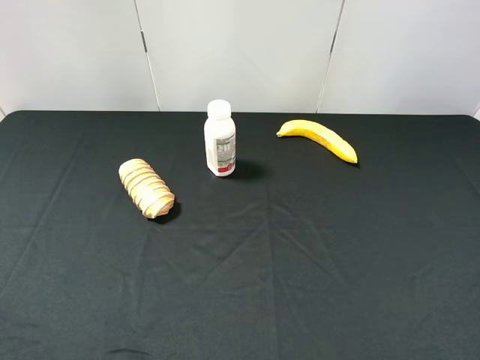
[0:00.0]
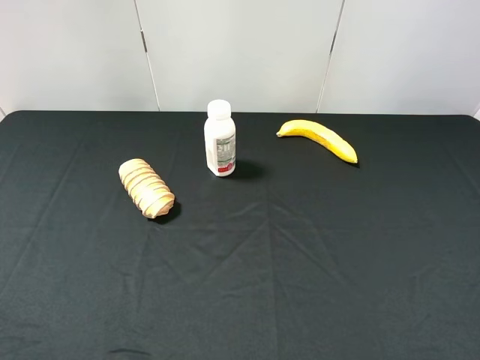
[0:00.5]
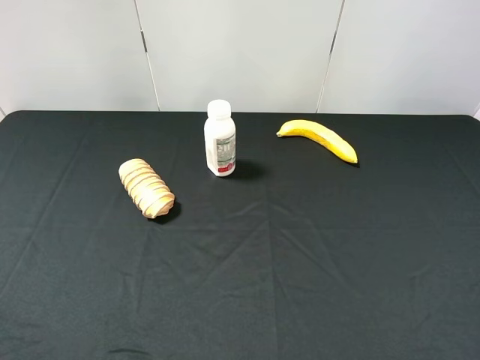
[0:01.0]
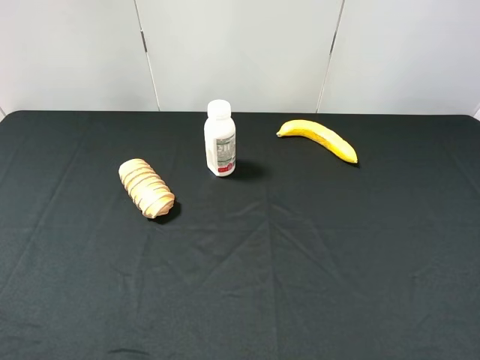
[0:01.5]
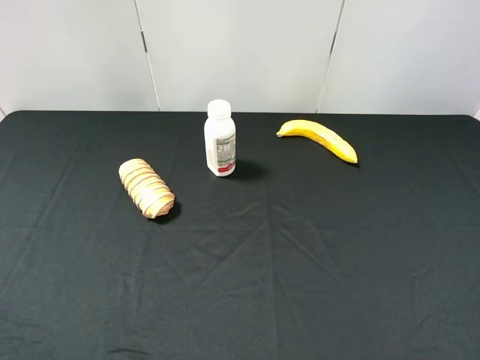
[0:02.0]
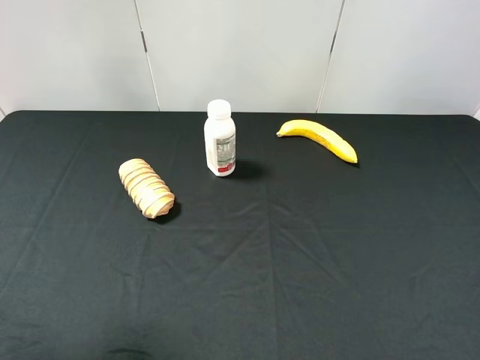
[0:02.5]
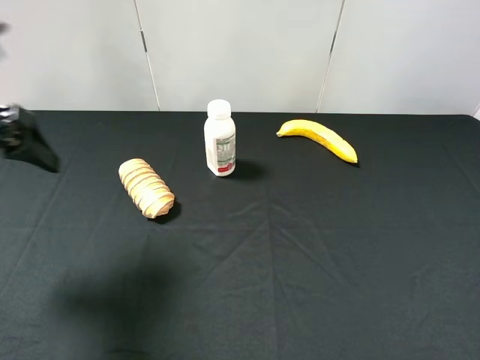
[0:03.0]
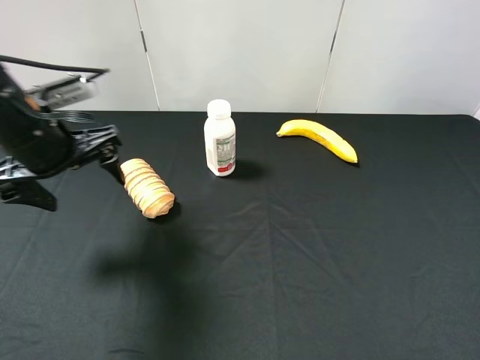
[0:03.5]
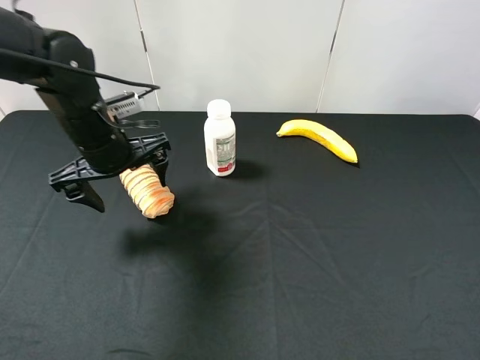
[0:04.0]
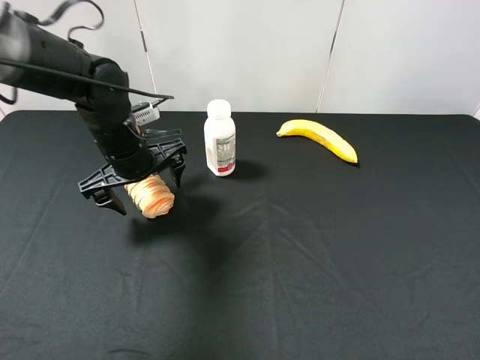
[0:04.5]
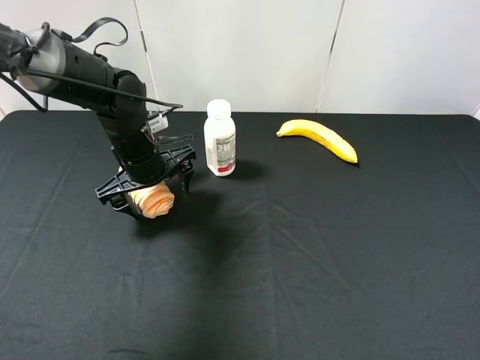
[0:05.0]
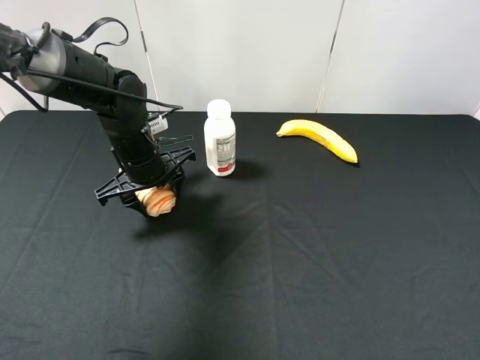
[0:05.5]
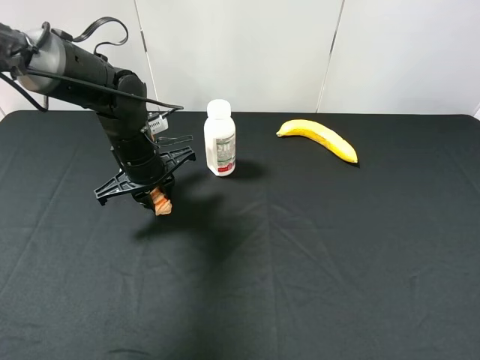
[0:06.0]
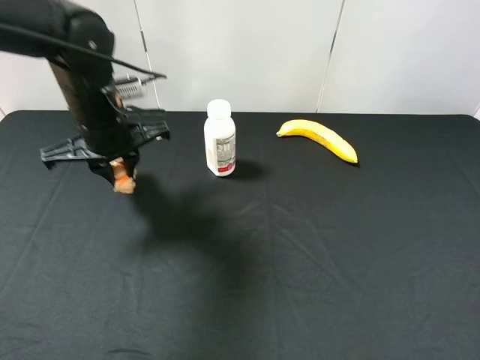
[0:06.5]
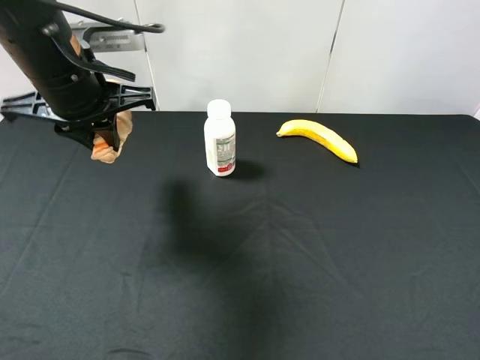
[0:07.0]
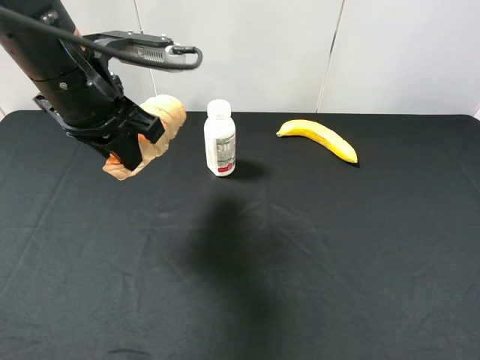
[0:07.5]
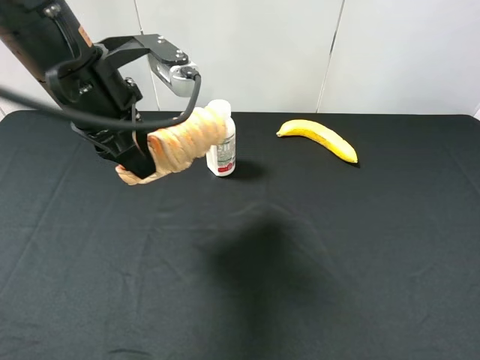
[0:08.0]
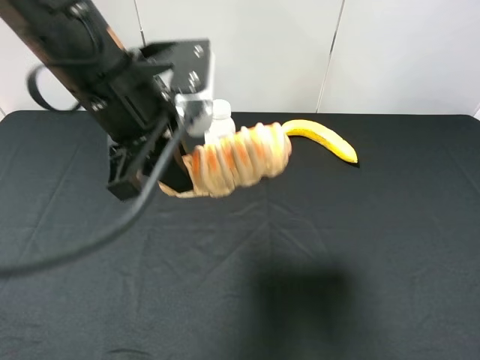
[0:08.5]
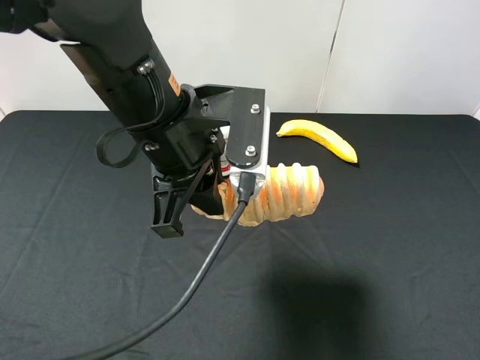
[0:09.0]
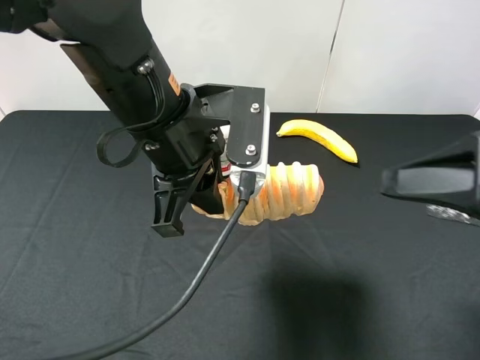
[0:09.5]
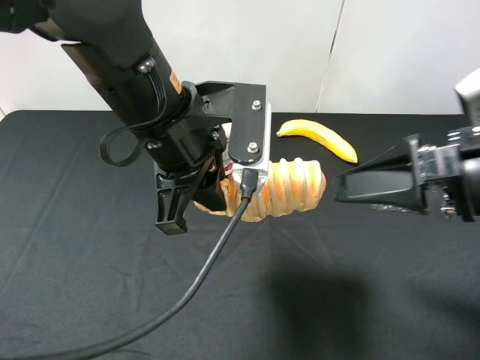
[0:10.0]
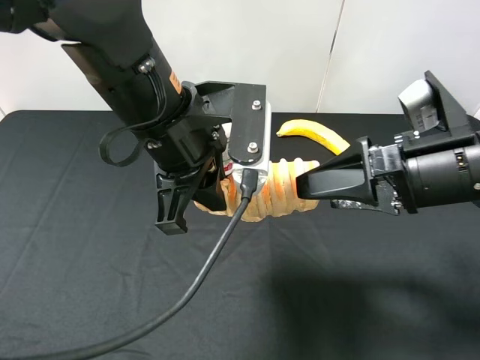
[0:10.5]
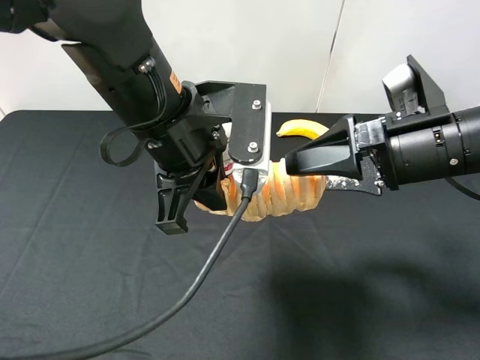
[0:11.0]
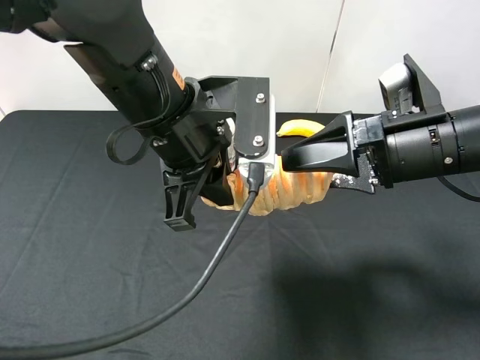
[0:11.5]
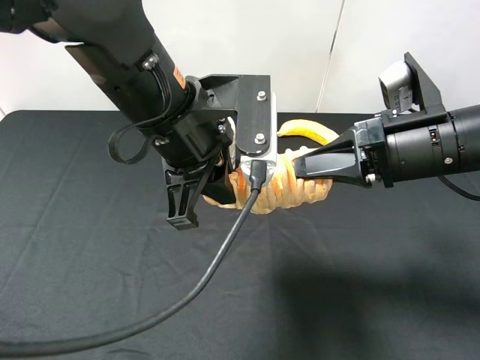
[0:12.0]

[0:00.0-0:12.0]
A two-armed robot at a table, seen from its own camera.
Task of the whole recording: use the left gripper to pick up the item and transfer it from the left gripper to the right gripper.
0:00.0 to 0:02.0: Neither gripper changes place.
0:02.0 to 0:04.0: The left gripper travels forward, to the right and downward by some 35 cm.
0:04.0 to 0:06.0: The left gripper goes roughly 5 cm downward, and closes up.
0:06.0 to 0:08.0: The left gripper is displaced upward and backward by some 20 cm.
0:08.0 to 0:10.0: The left gripper heads to the right, covering some 10 cm, while the right gripper is displaced forward and to the left by some 15 cm.
0:10.0 to 0:12.0: The right gripper is displaced forward by roughly 5 cm, and closes.

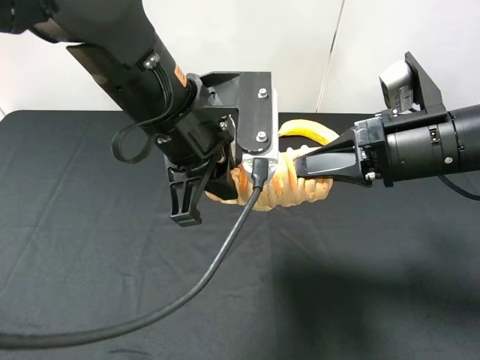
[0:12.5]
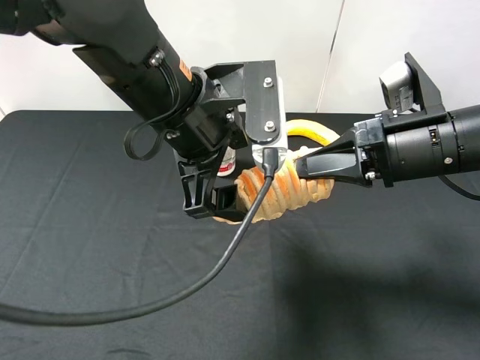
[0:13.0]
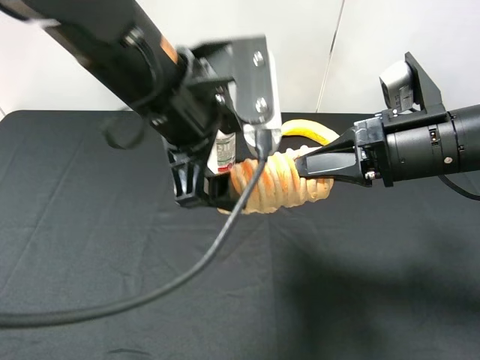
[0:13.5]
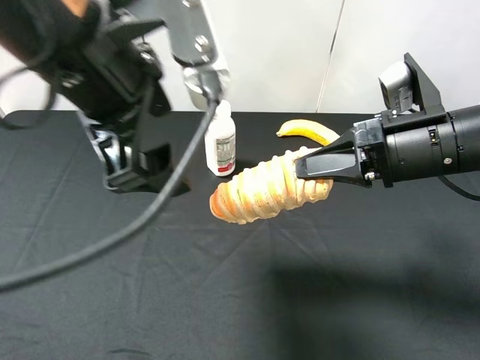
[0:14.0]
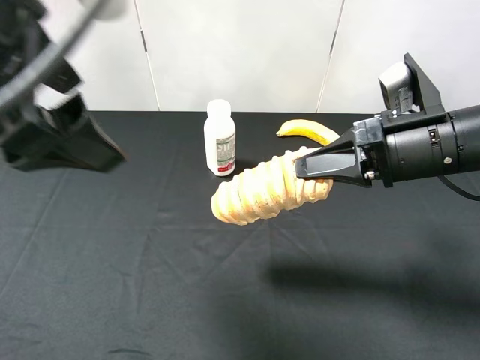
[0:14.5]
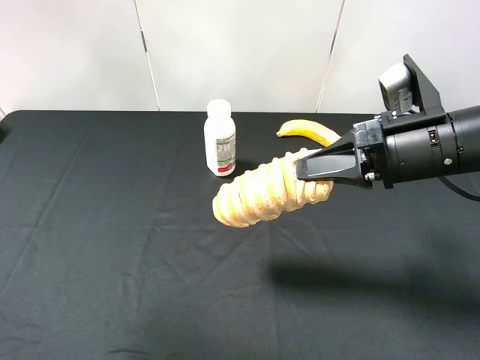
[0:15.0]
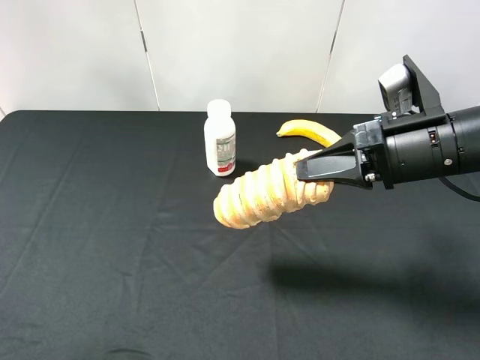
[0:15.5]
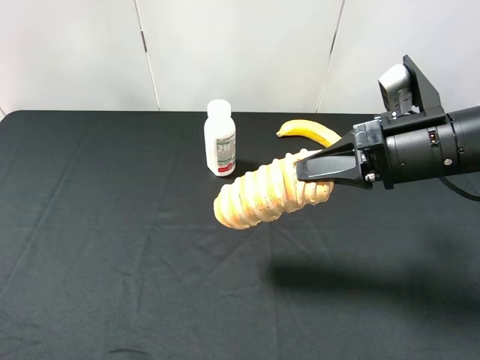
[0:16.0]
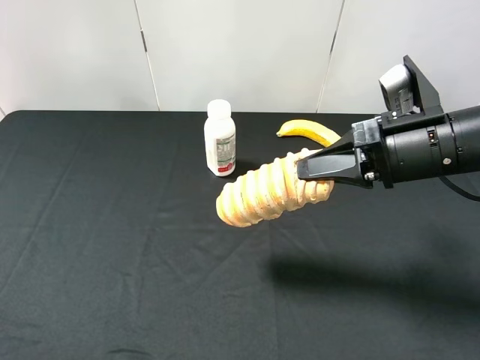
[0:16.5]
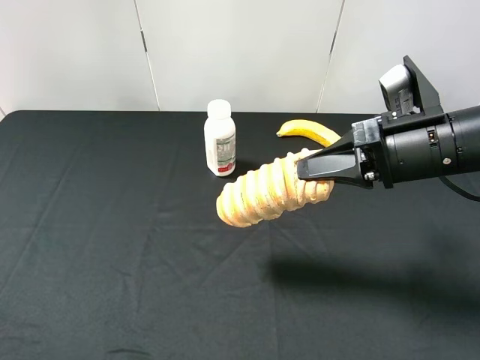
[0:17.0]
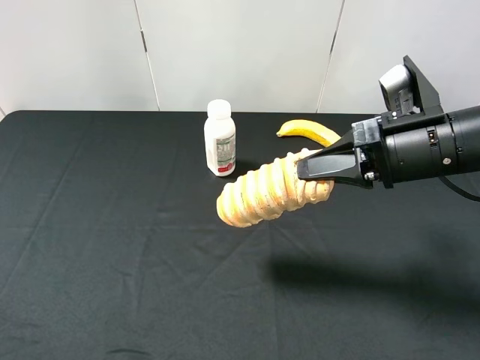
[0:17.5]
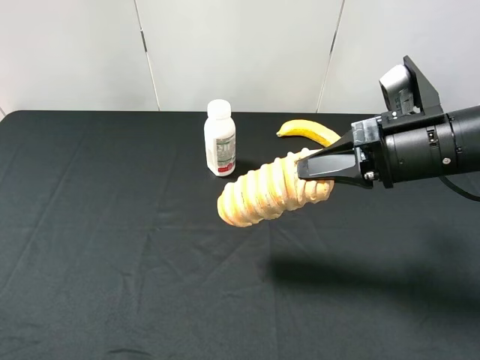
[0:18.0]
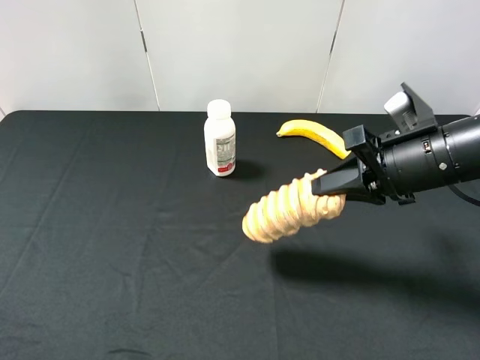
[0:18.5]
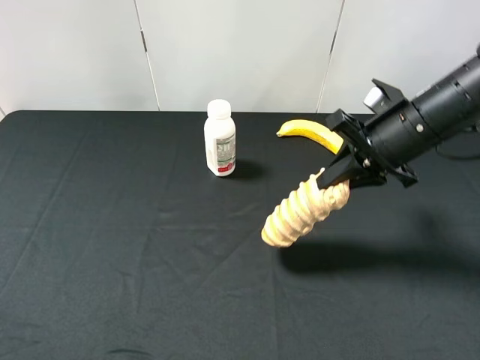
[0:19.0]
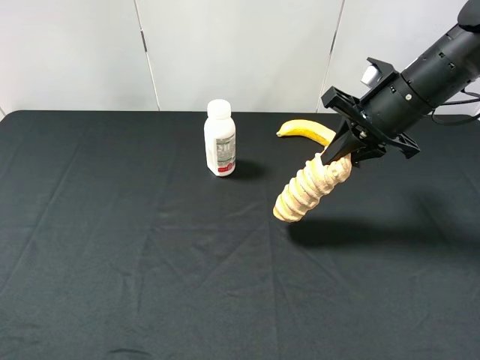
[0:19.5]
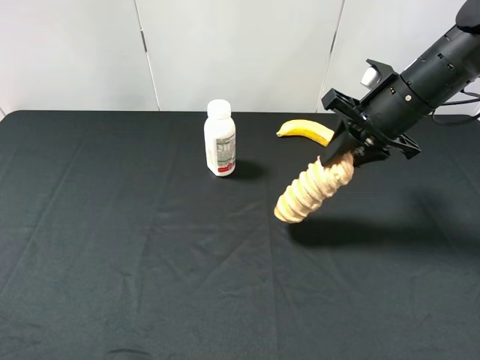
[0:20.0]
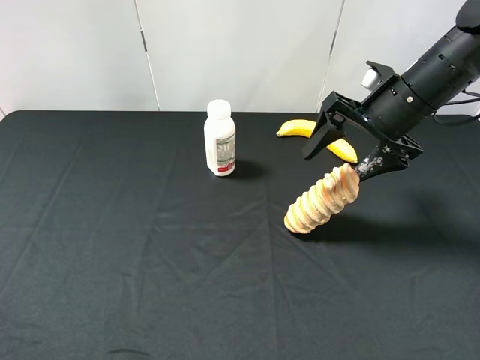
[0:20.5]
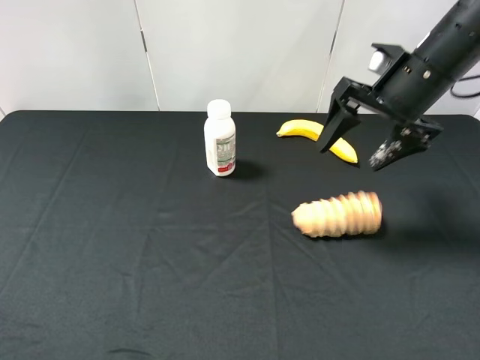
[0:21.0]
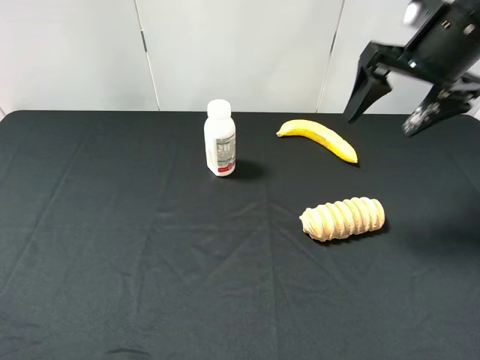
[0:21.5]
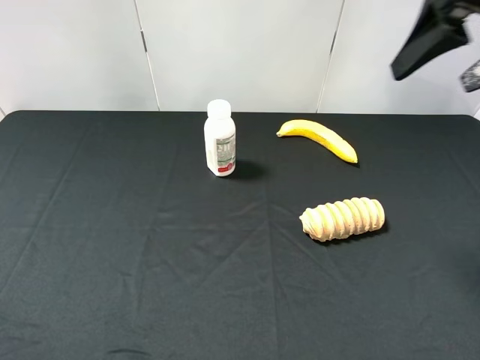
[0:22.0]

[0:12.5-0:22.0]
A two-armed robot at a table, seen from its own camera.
Task of the whole recording: use the left gripper to pick up the item and transfer it from the left gripper to the right gripper.
0:12.5 to 0:14.5: The left gripper heads upward, to the left and backward, covering approximately 15 cm, and opens.
0:14.5 to 0:16.5: The left gripper is displaced to the left, backward and downward by roughly 25 cm.
0:18.0 to 0:20.0: The right gripper is displaced forward by some 10 cm, and opens.
0:20.0 to 0:22.0: The right gripper shifts roughly 20 cm upward and backward, and opens up.

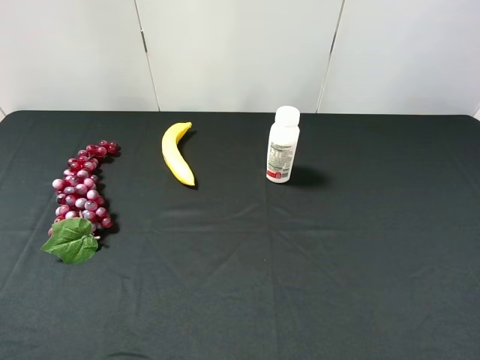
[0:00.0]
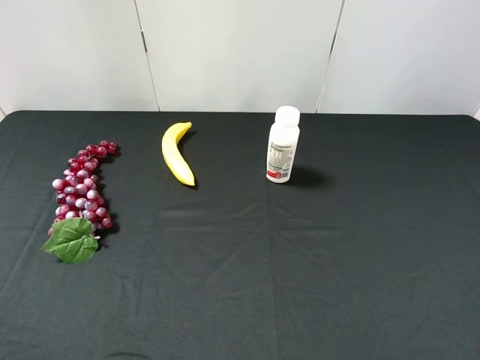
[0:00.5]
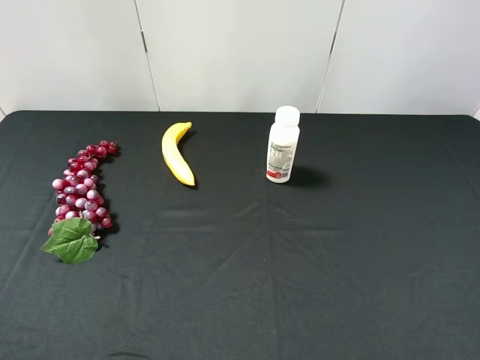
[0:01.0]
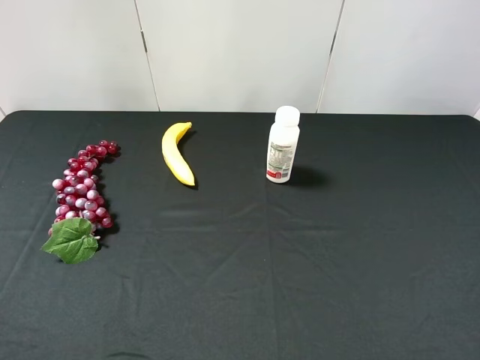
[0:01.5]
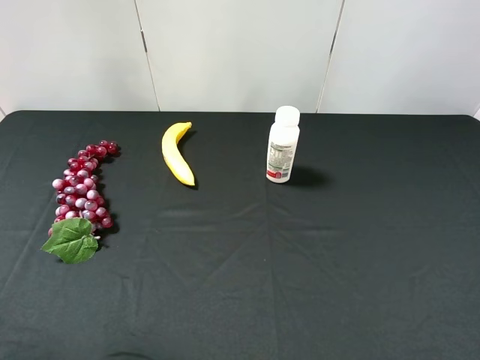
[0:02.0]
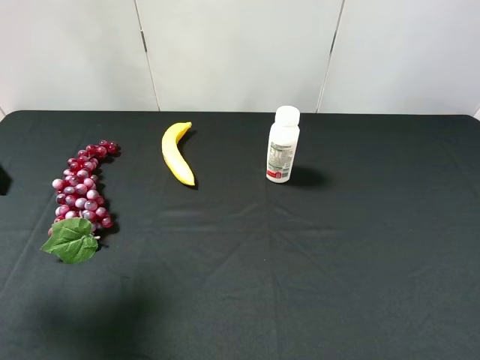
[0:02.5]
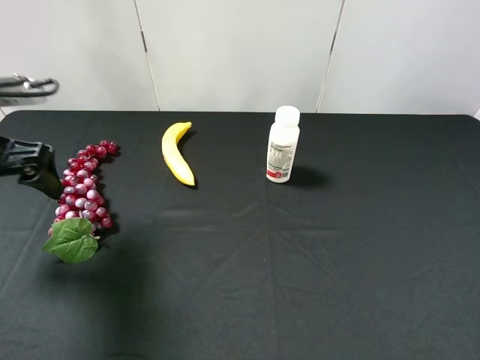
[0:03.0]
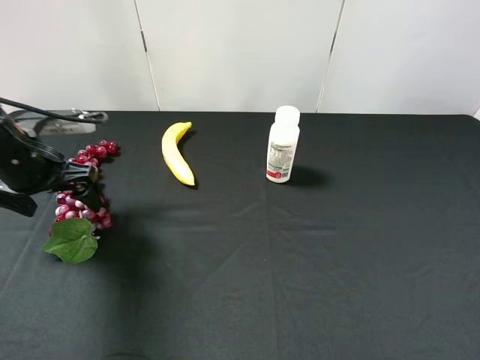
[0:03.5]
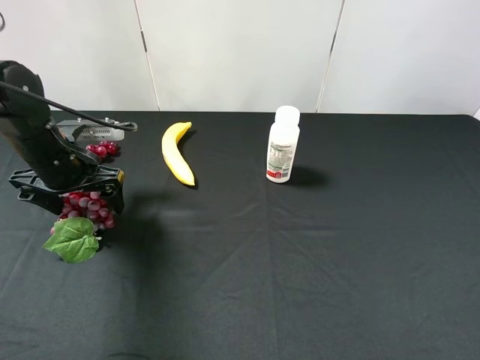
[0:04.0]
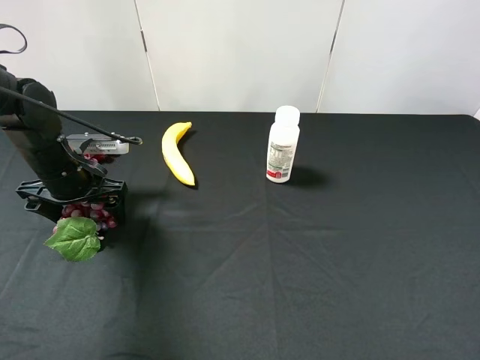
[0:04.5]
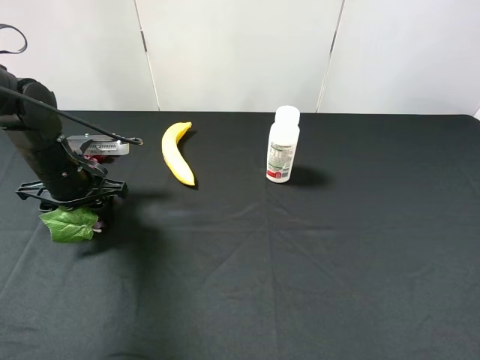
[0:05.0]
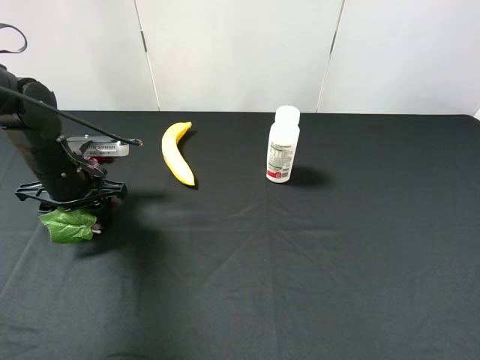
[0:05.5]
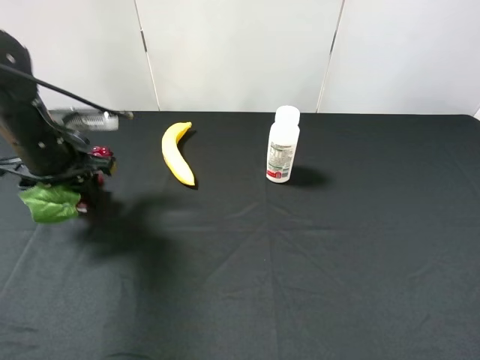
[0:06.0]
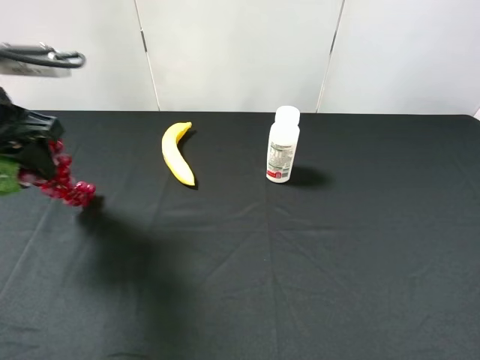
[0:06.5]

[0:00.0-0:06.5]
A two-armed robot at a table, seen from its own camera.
Task of the whole recording: use the left gripper to pick up the item and transfer it from the left gripper to the right gripper.
0:02.0 to 0:04.5: The left gripper moves downward and forward, about 30 cm.
0:04.5 to 0:06.5: The left gripper is displaced upward by about 15 cm, and closes up.
